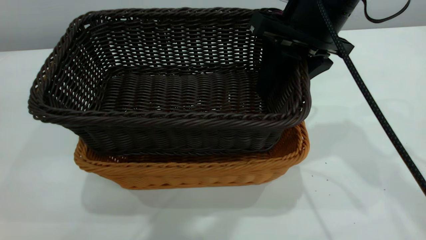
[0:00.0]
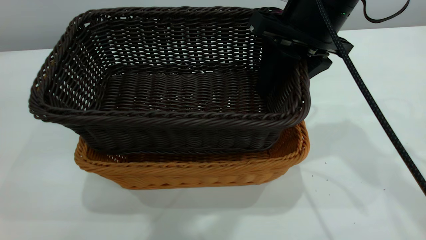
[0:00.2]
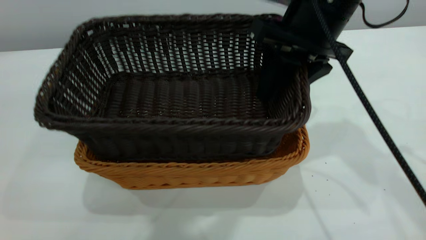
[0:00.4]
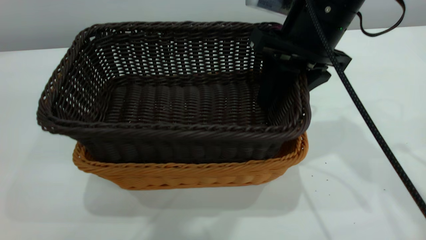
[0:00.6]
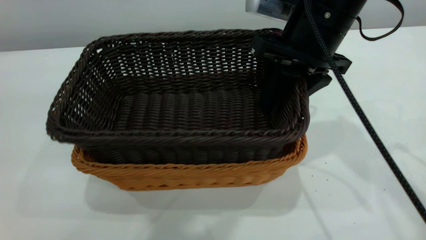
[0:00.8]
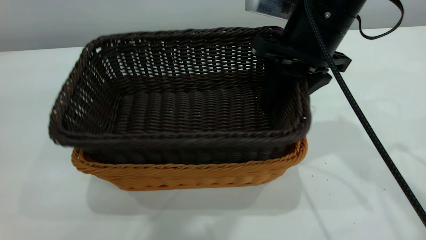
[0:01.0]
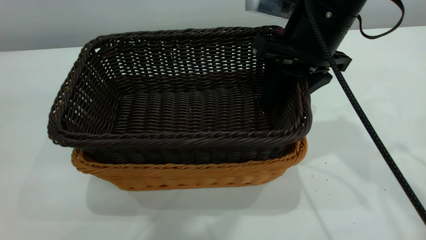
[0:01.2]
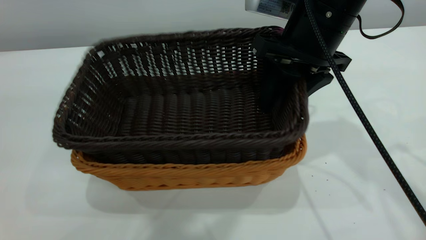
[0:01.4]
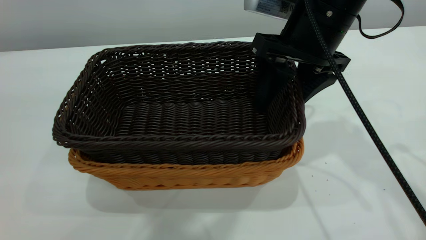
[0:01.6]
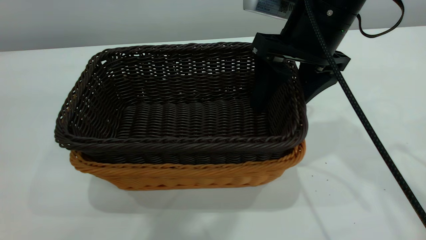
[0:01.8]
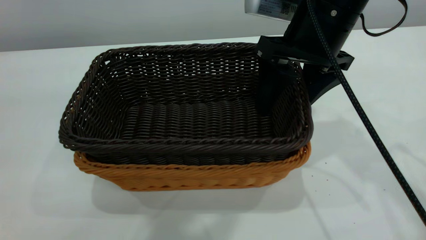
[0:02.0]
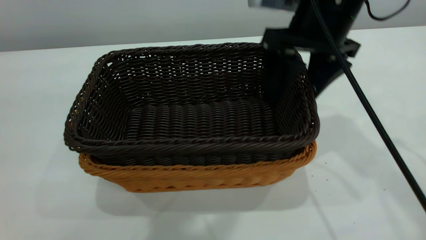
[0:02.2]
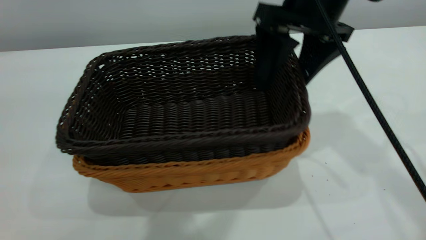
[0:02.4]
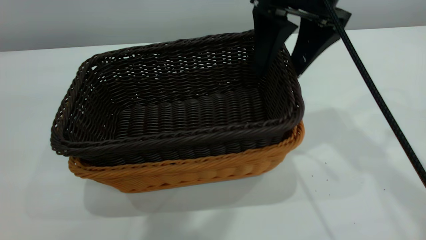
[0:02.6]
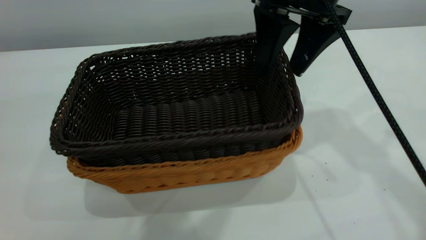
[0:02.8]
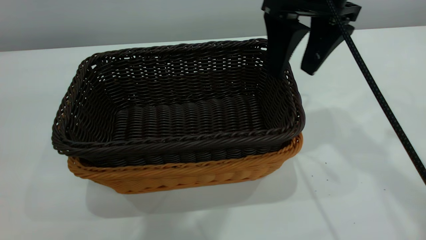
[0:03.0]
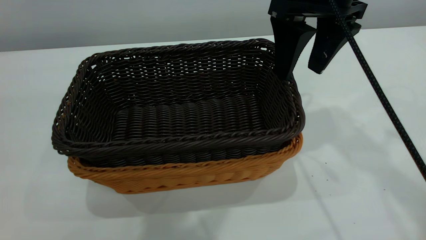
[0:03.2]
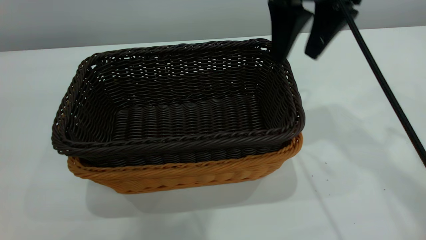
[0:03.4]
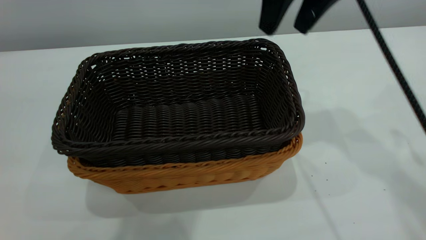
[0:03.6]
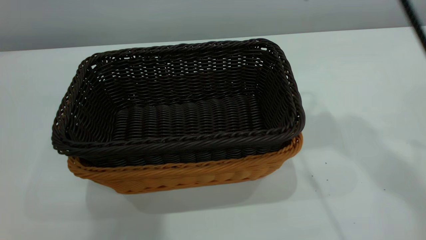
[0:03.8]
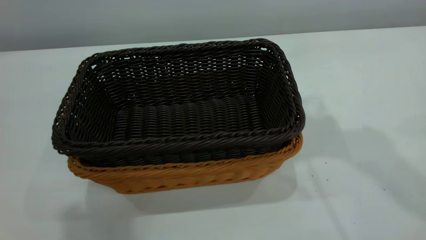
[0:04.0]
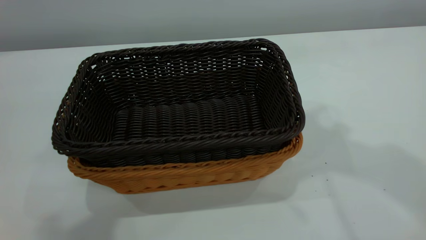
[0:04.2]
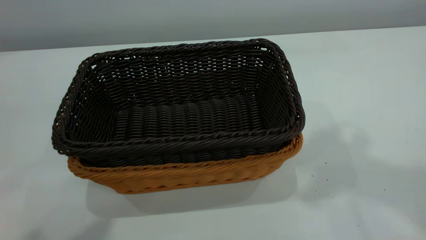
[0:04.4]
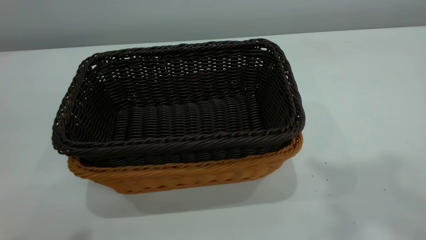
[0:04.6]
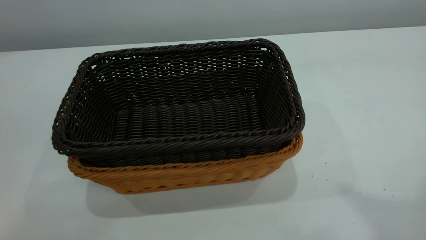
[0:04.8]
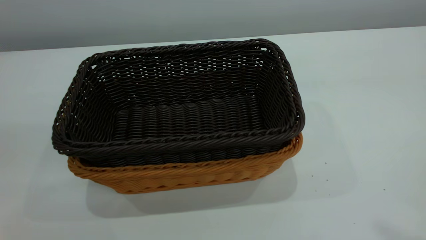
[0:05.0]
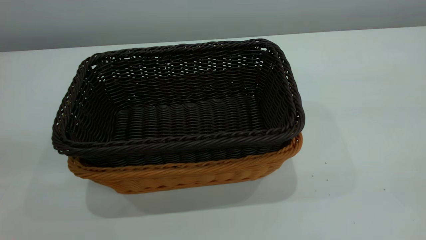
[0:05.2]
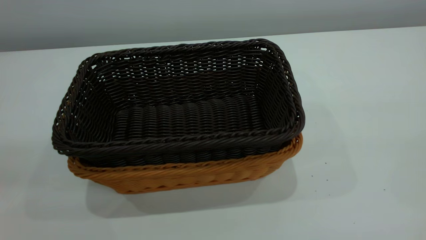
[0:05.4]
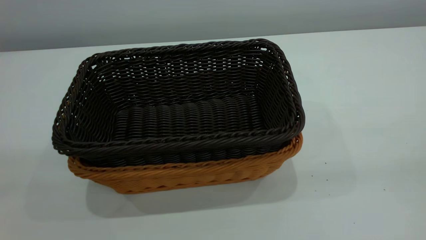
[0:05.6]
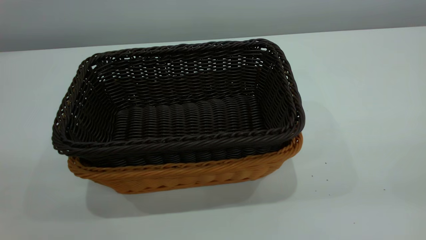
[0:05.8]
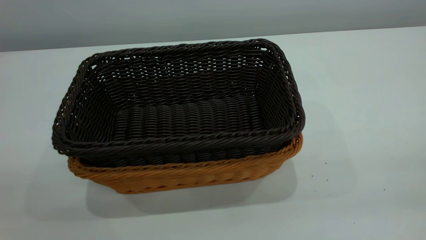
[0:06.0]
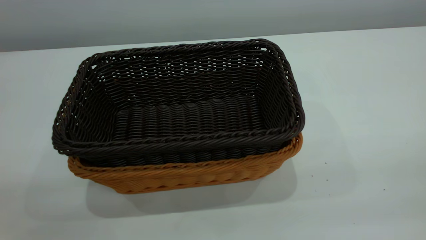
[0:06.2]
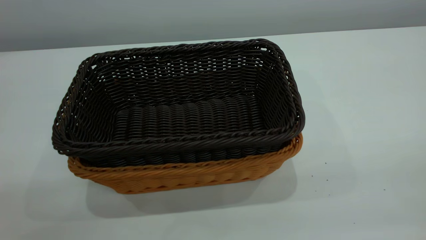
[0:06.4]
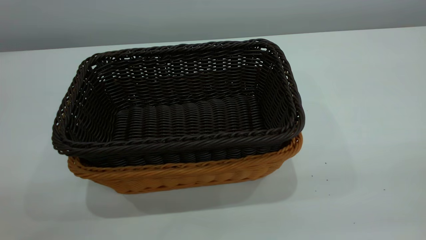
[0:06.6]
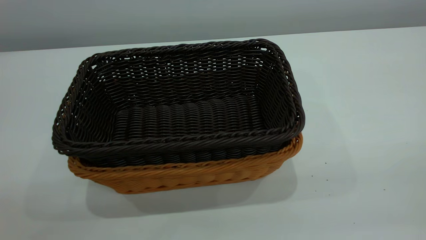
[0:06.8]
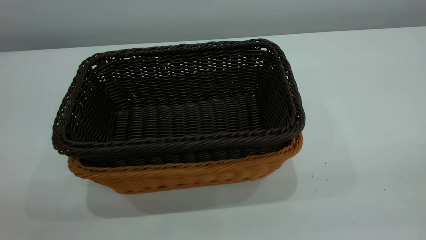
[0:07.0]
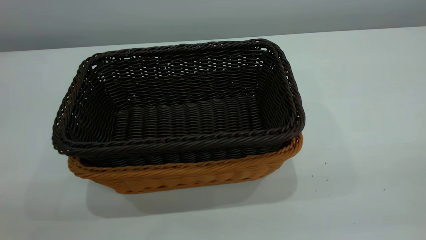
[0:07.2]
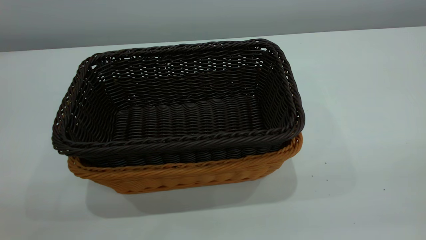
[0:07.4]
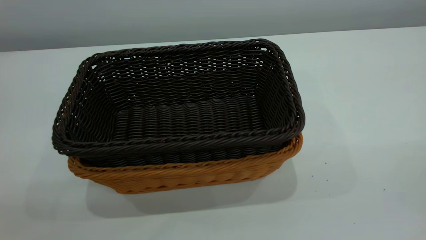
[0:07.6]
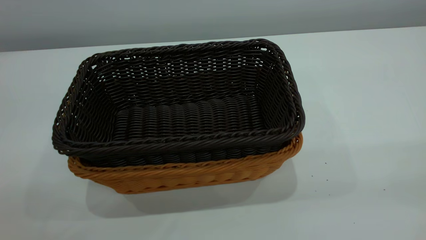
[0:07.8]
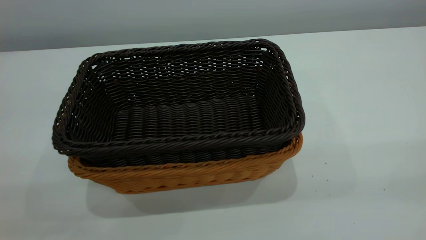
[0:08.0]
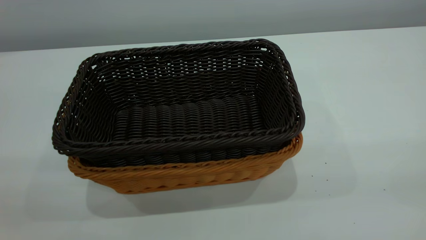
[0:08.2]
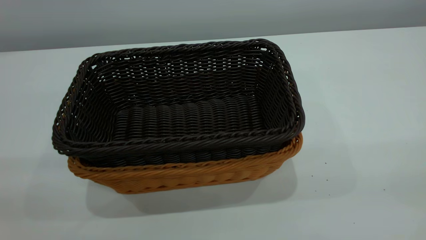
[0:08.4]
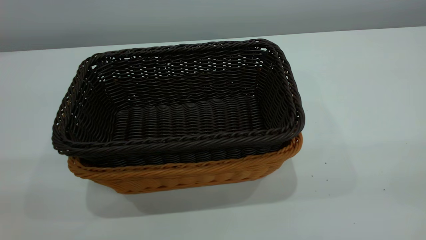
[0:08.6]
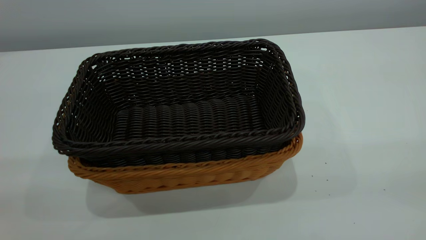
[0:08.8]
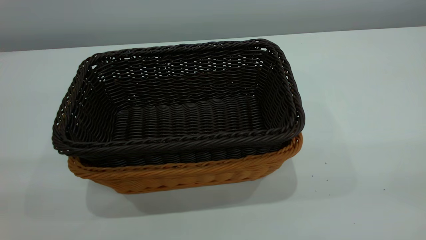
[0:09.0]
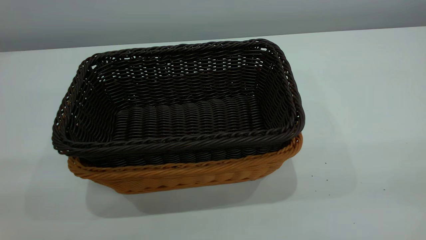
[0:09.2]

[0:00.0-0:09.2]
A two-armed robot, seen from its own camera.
Task of the whole recording: the left gripper grasp the brown basket and place it in the center of the table, the right gripper grasp the black basket and place it inside the brown one.
Step, 0:00.0 to 0:03.4: Place the dark basket on top of the light basket.
0:00.0 to 0:01.6: The right gripper opens its fingers.
0:01.6 to 0:03.0: The right gripper ends up about 5 cm from where it was.
0:03.0 to 0:04.6: The left gripper is displaced to the left and backward by about 15 cm, and closes up. The right gripper moves upward and backward, some 35 cm, and closes.

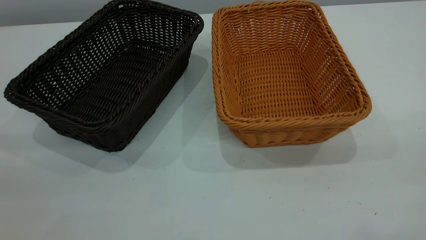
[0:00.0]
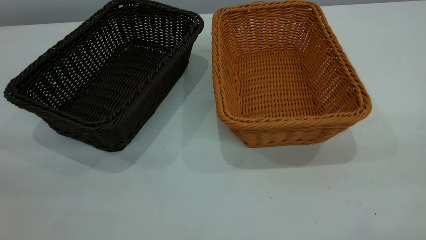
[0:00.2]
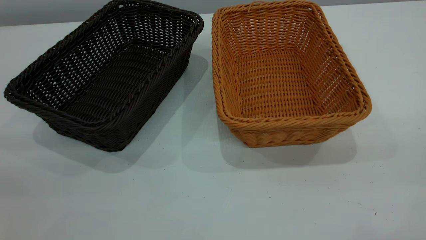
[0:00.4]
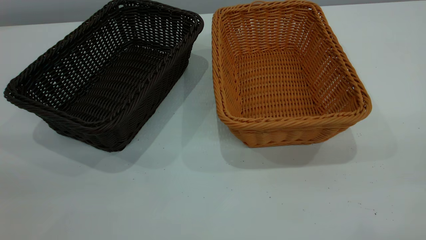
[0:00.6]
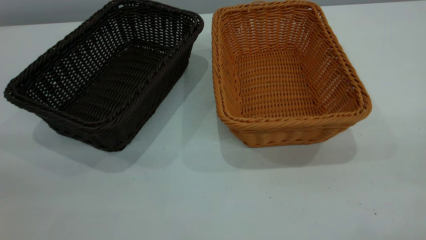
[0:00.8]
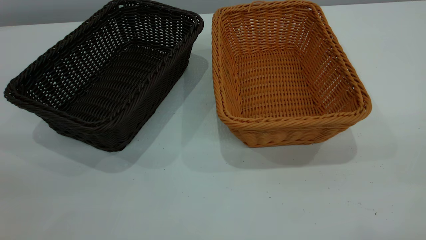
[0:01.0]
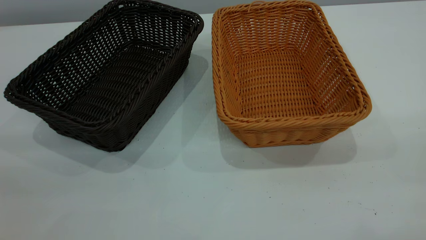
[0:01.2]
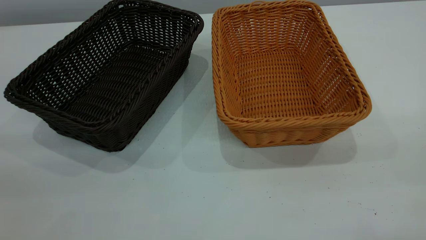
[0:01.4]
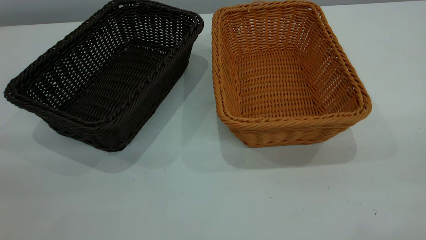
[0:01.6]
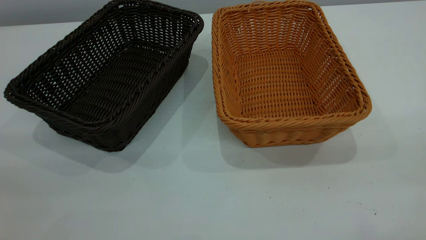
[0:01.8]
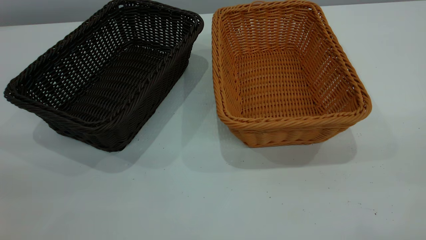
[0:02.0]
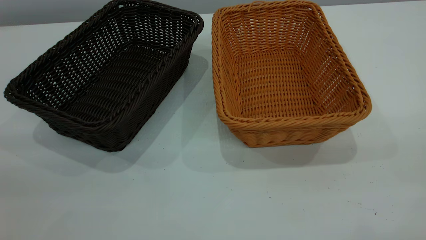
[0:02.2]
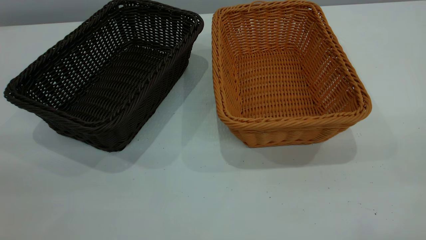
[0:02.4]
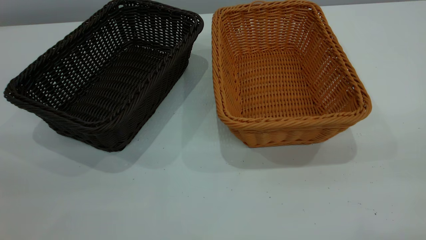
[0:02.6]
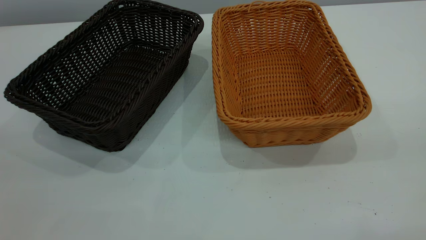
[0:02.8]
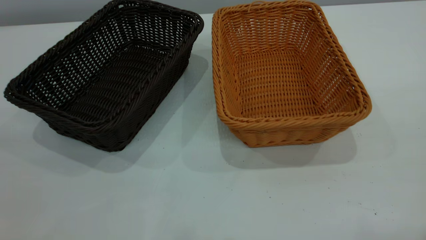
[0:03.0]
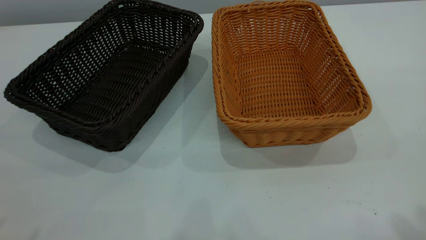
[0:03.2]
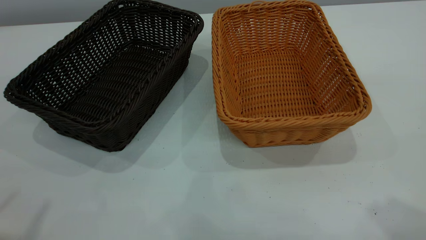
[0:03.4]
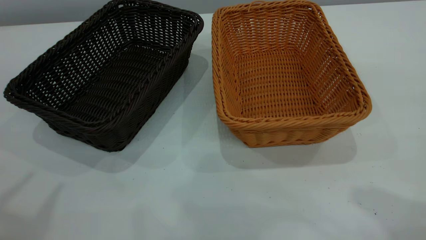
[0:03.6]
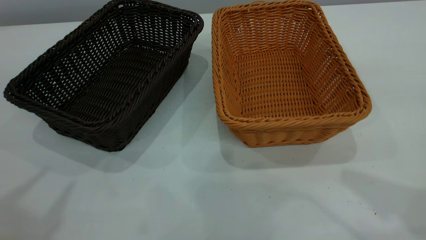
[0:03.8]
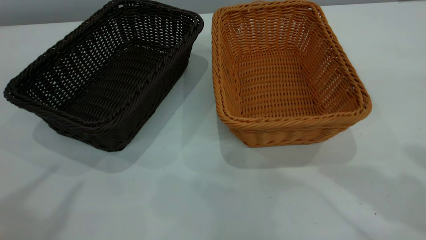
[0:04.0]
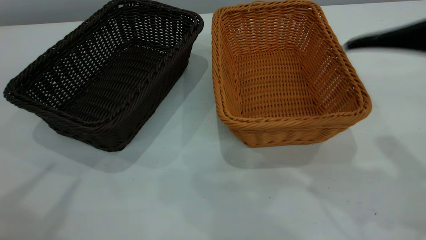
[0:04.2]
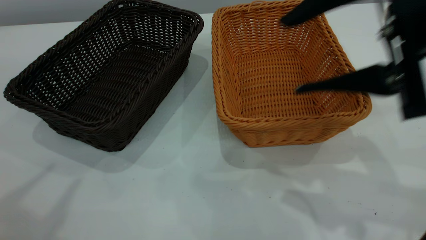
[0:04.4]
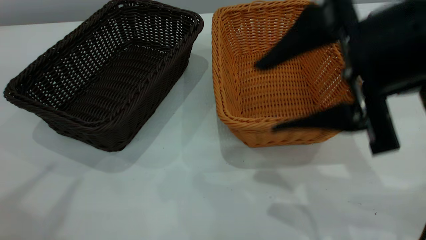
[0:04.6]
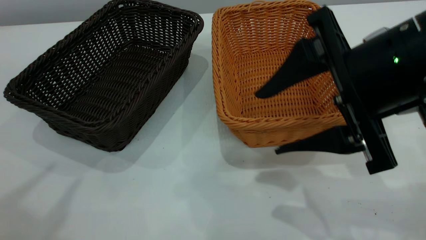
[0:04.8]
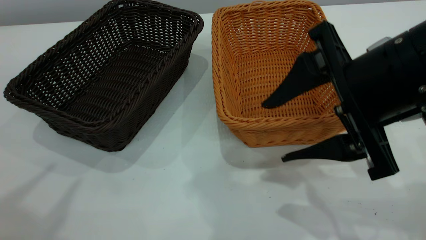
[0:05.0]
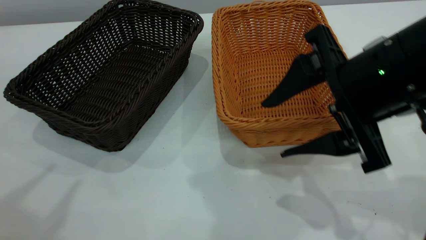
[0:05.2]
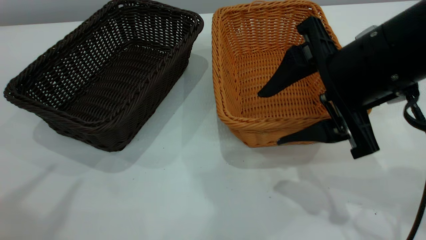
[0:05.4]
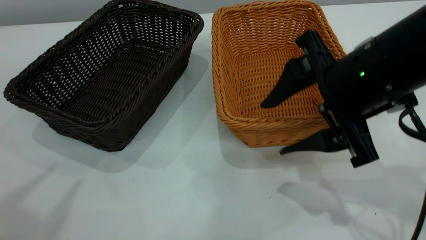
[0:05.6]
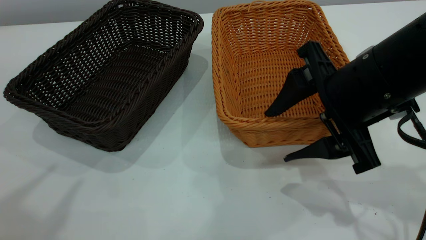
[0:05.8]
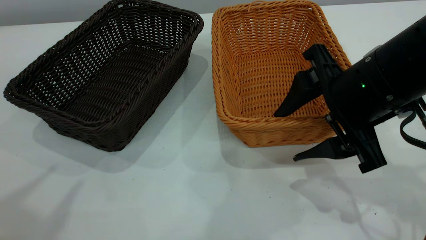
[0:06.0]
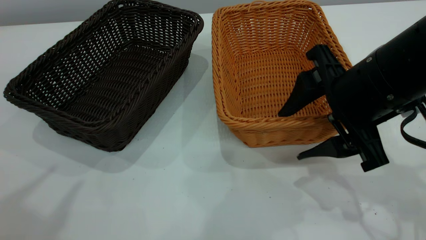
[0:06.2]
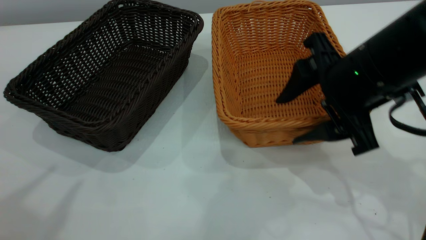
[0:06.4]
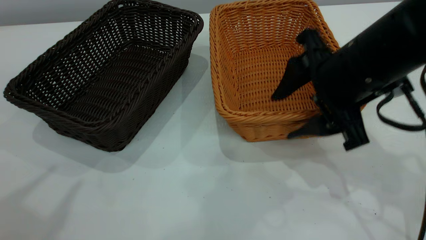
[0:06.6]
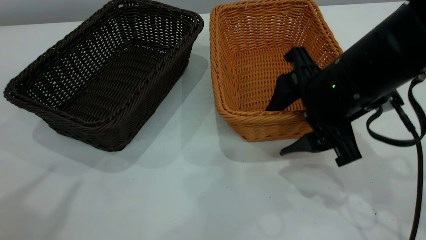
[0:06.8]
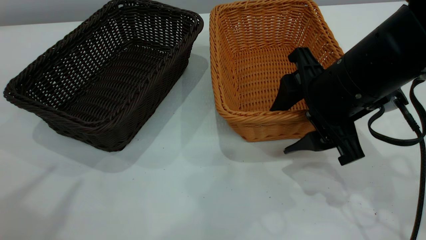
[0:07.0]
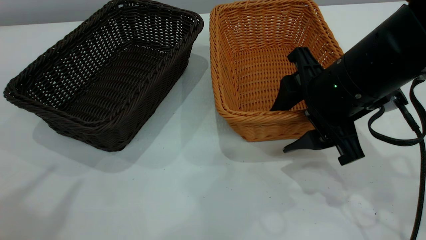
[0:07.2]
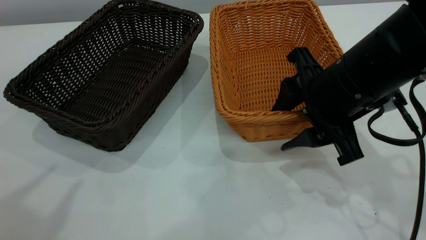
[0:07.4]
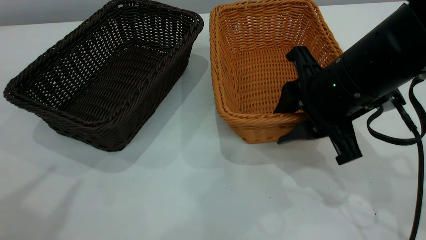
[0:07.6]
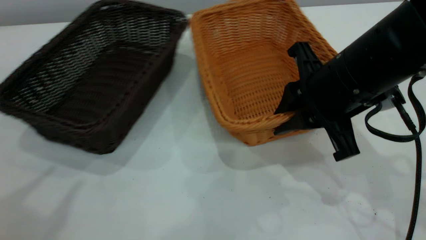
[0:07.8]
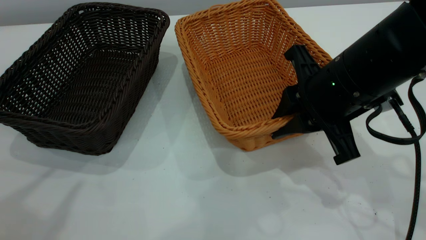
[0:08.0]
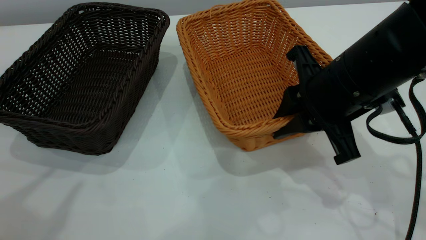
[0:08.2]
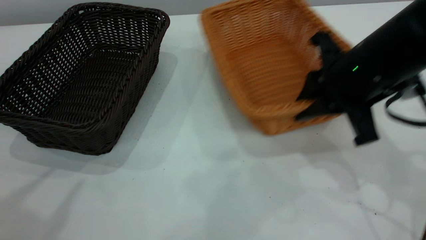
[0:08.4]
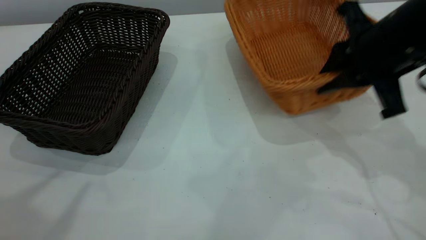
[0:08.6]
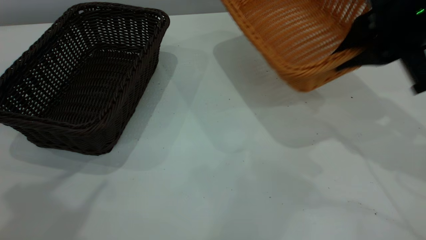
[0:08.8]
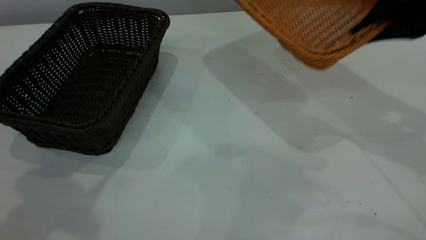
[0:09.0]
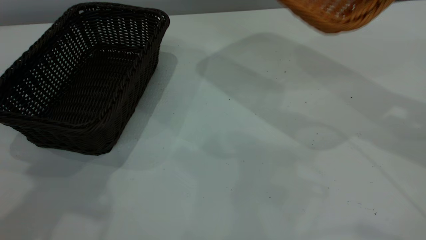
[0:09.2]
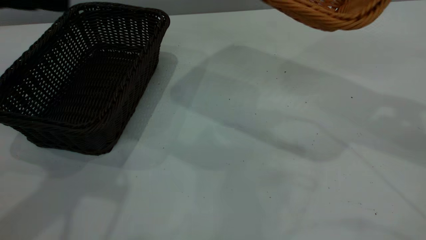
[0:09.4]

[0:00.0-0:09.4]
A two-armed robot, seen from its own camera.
Task of the whole recording: the left gripper grasp the black basket and place it in the center of the table, the right gripper grasp the brown basket and place it inside the black one.
Step, 0:00.0 to 0:08.6: Pick up the light basket with the right gripper.
0:00.0 to 0:01.6: Neither gripper changes place.
0:03.2 to 0:04.8: The left gripper is displaced forward by approximately 5 cm. Meanwhile the right gripper is displaced downward, forward and to the left by about 25 cm.
0:04.8 to 0:06.2: The right gripper changes place by approximately 5 cm.
0:06.2 to 0:07.8: The right gripper closes its fingers.
0:07.8 to 0:09.4: The left gripper goes approximately 15 cm forward, downward and to the right. Meanwhile the right gripper travels upward and to the right by approximately 20 cm.
